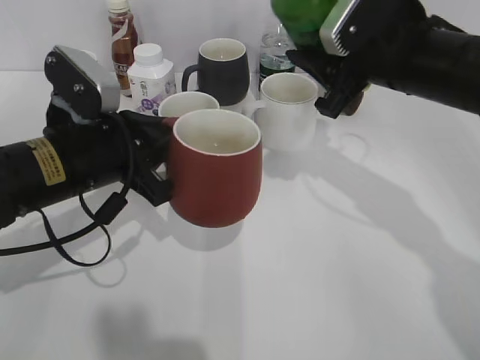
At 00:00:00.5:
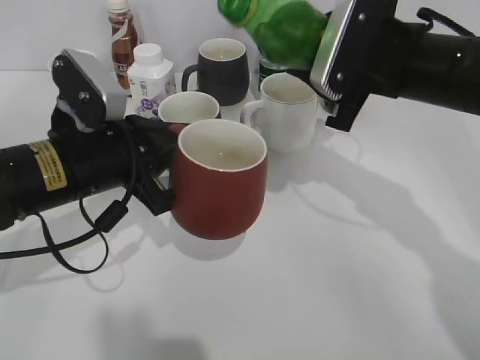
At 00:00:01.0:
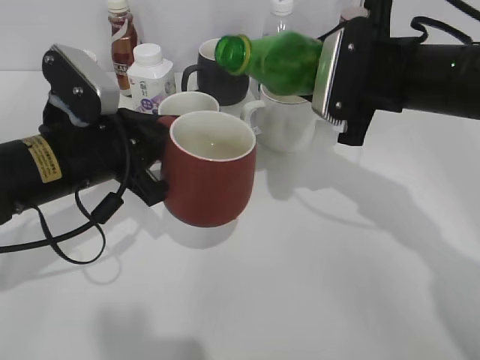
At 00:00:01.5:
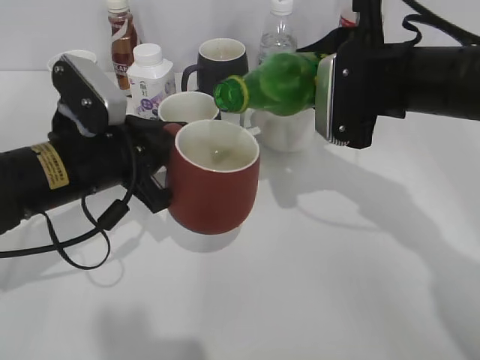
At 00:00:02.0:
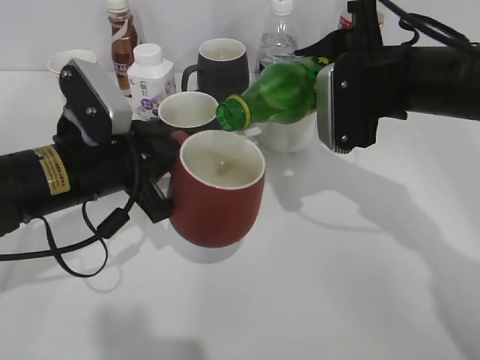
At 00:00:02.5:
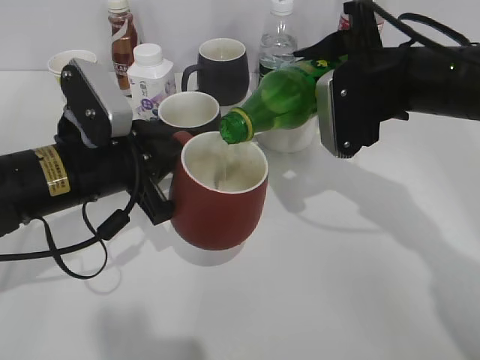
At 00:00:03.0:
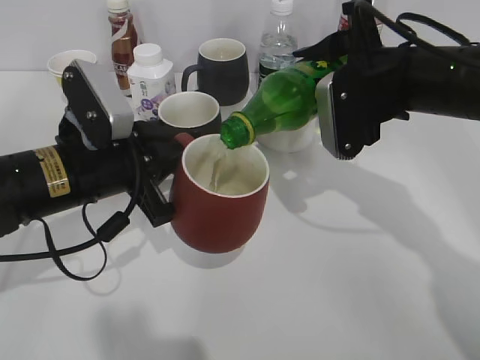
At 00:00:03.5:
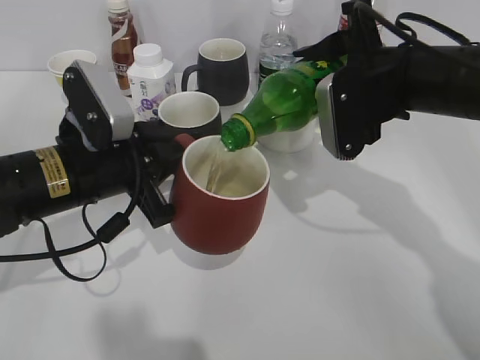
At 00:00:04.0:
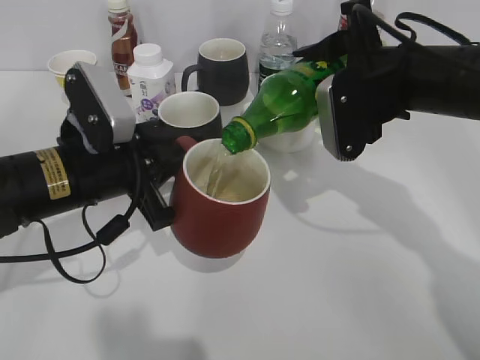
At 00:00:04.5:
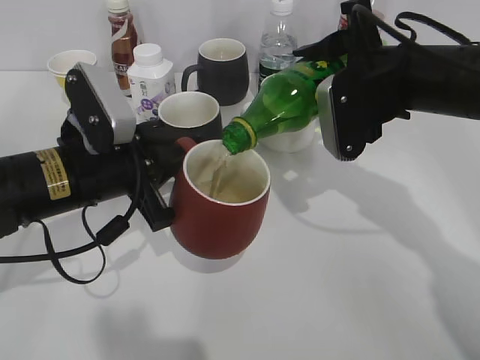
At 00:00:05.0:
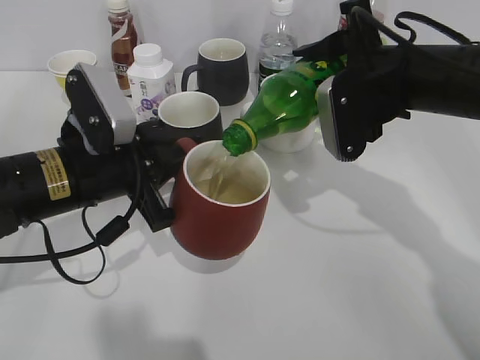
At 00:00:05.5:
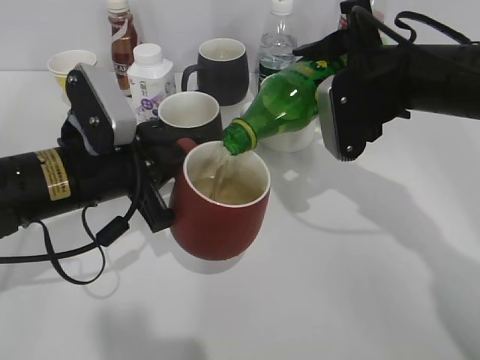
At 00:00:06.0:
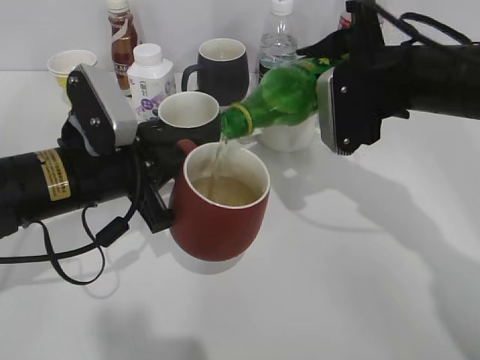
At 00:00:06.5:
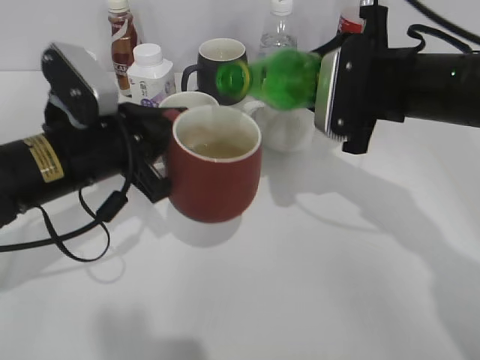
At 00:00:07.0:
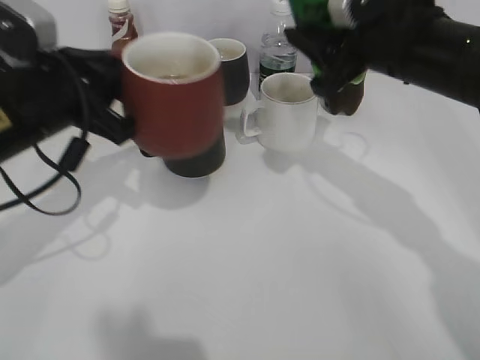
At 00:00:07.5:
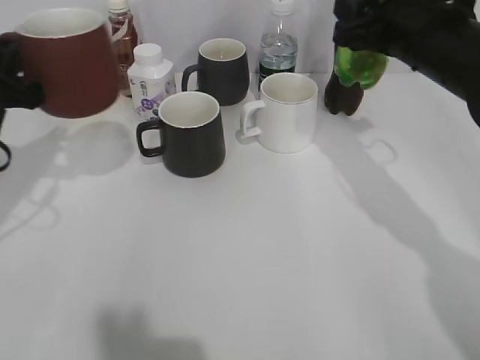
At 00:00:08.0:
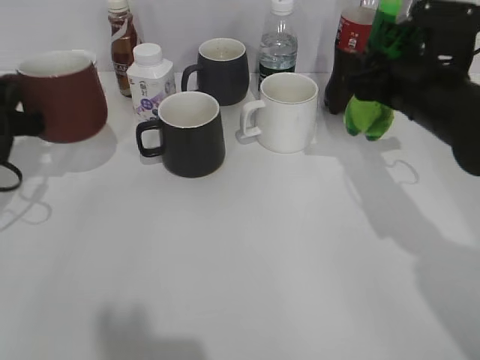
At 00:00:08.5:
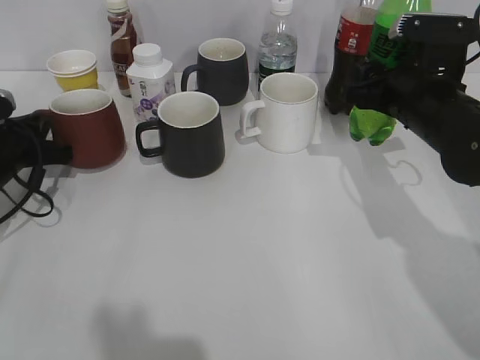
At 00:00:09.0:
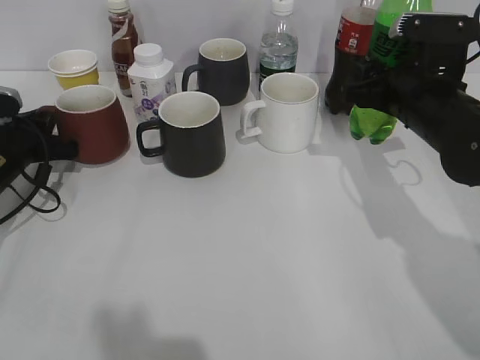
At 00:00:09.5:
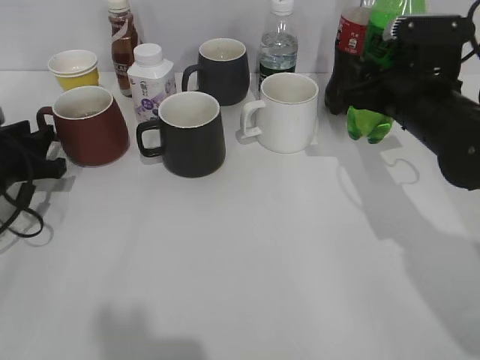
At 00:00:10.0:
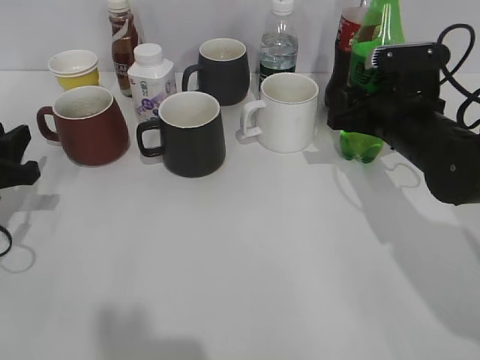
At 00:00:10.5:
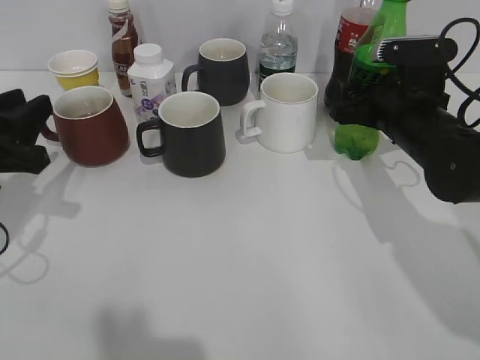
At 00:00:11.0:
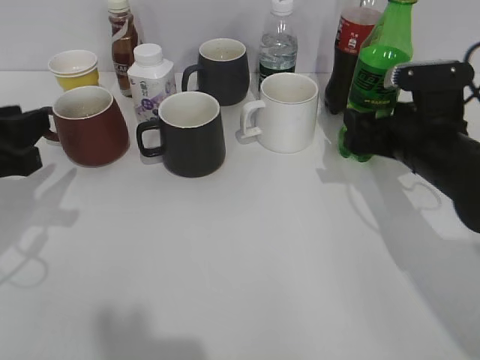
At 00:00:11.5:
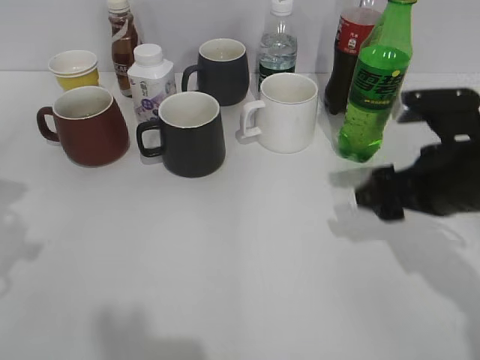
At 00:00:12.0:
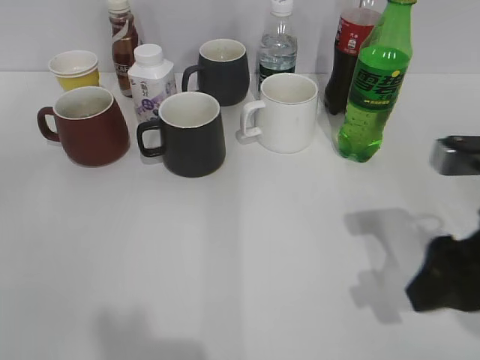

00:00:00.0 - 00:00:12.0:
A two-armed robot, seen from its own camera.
Step, 00:00:00.0 - 00:00:06.0: Pour the sprite from bottle to cup with right gripper.
Step, 00:00:06.5 - 00:00:07.0: Place the red cup on the table with left gripper.
Step, 00:00:07.5 - 00:00:11.0: Place the sprite bottle on the table with right gripper.
00:00:02.0 - 00:00:04.0: There are only small adjustments of the grippers.
00:00:04.0 - 00:00:06.0: The two grippers keep their place.
00:00:06.0 - 00:00:08.0: The left gripper heads to the left, covering approximately 15 cm; the right gripper changes place by approximately 5 cm.
00:00:08.0 - 00:00:10.0: The left gripper ends up about 5 cm from where it was, and opens its fingers.
00:00:10.0 - 00:00:12.0: The right gripper heads backward, covering approximately 15 cm, and opens up. Meanwhile the left gripper goes approximately 20 cm backward and upward.

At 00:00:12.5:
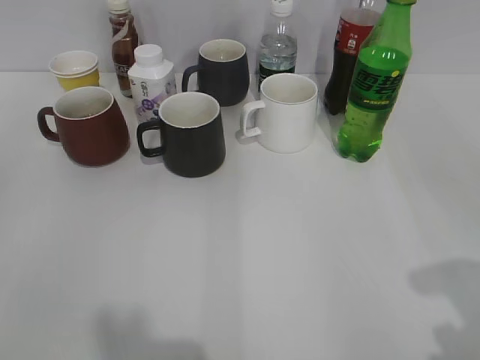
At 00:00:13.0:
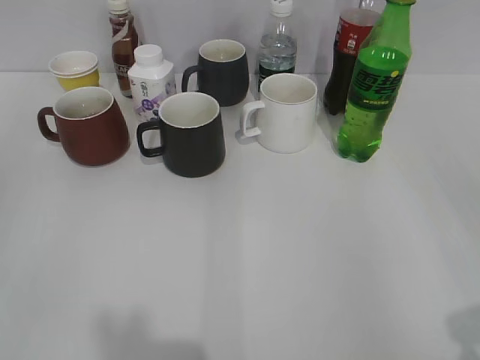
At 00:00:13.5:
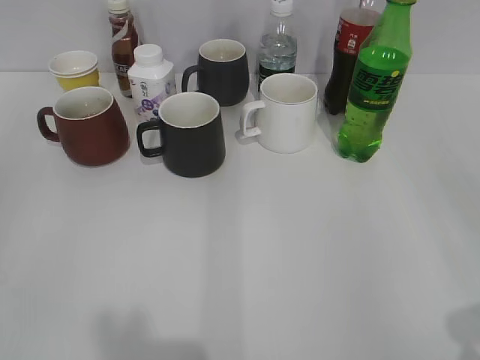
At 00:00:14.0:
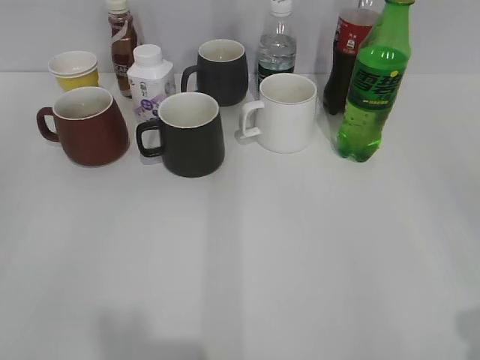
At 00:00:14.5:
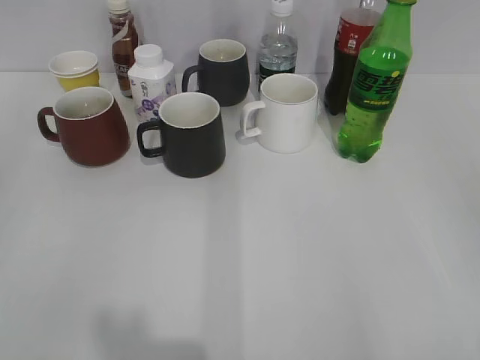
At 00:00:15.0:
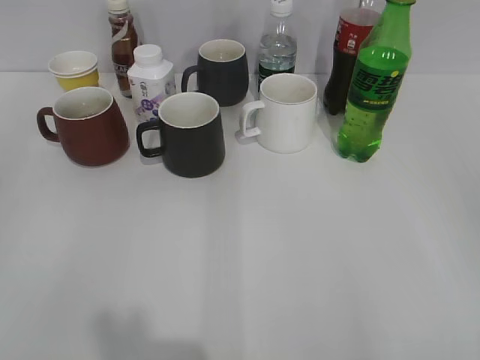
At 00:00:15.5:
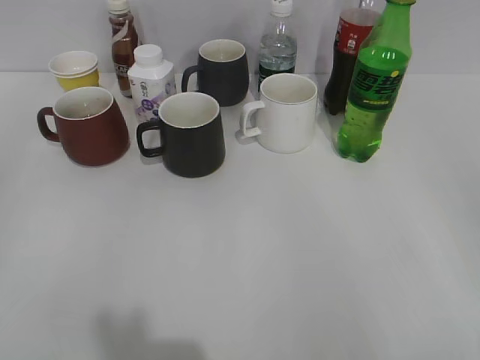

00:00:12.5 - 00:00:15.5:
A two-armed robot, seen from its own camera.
00:00:12.5 - 00:00:14.0: The right gripper travels backward by approximately 5 cm.

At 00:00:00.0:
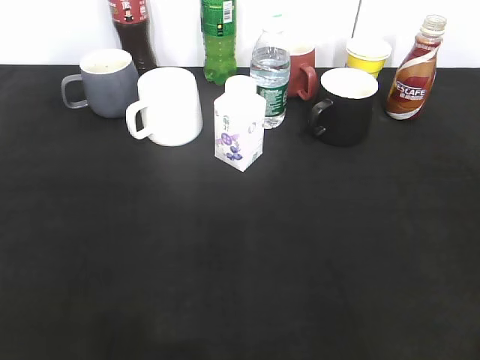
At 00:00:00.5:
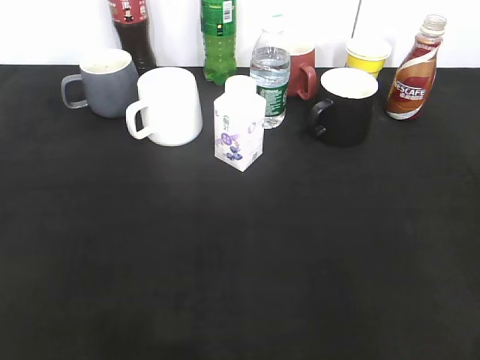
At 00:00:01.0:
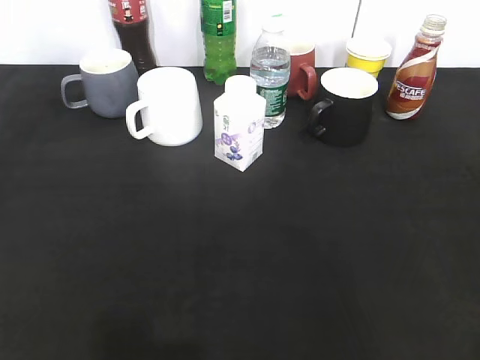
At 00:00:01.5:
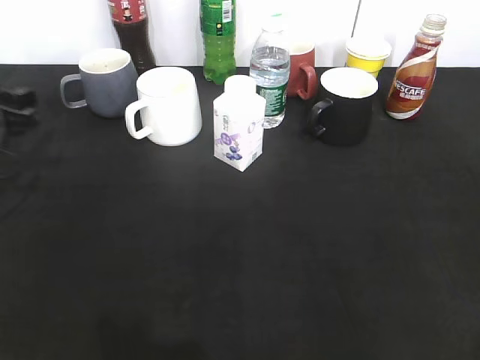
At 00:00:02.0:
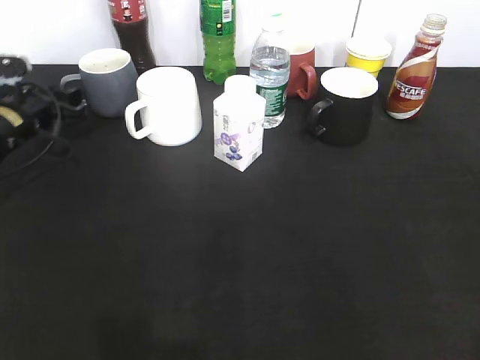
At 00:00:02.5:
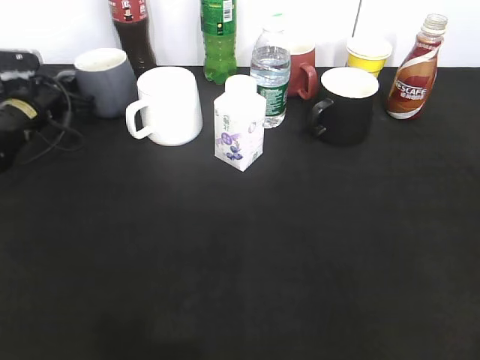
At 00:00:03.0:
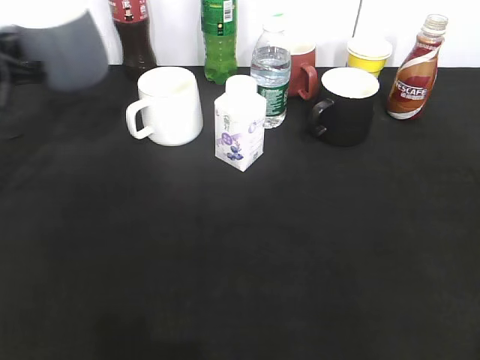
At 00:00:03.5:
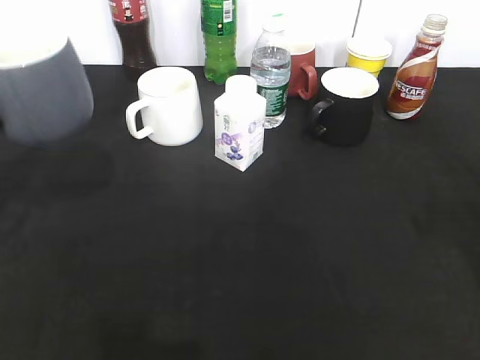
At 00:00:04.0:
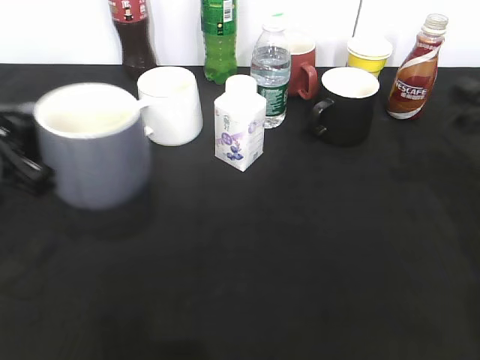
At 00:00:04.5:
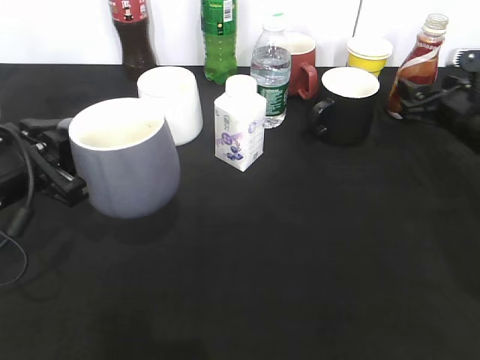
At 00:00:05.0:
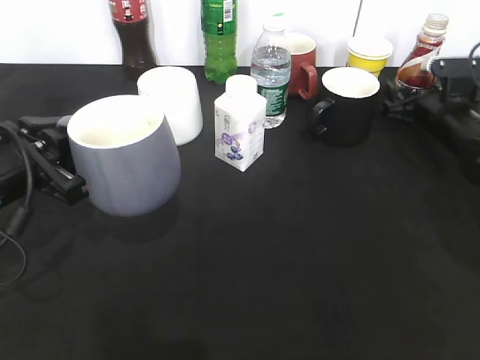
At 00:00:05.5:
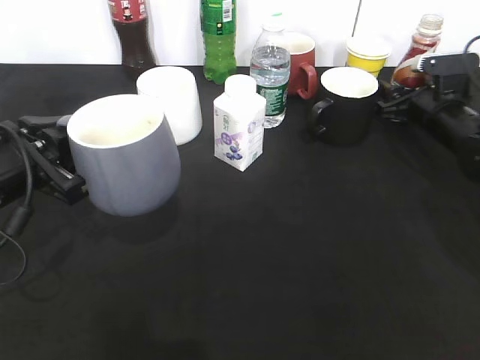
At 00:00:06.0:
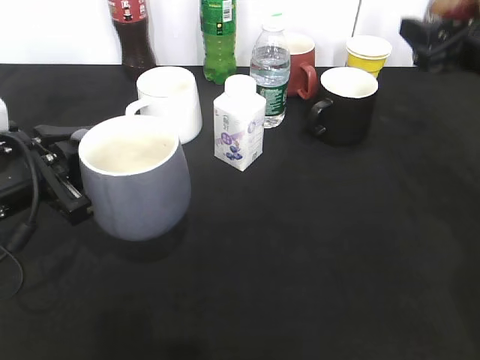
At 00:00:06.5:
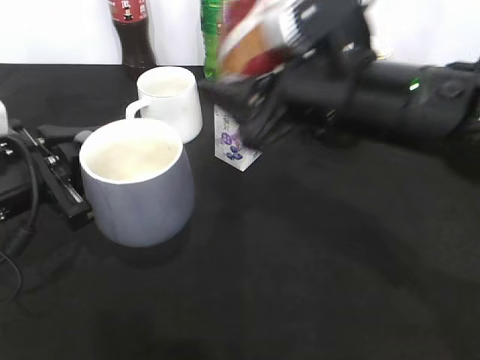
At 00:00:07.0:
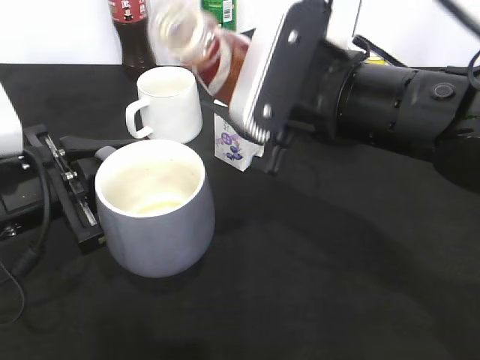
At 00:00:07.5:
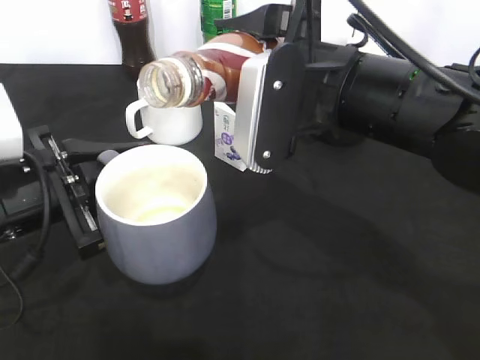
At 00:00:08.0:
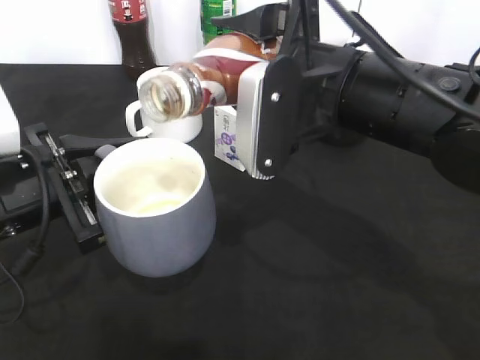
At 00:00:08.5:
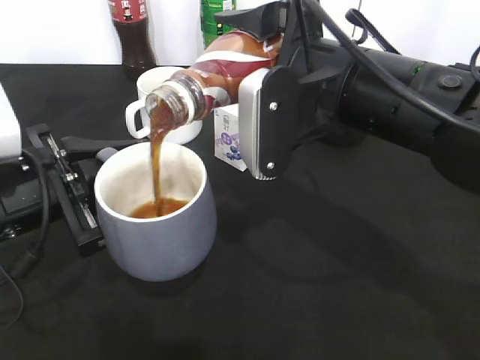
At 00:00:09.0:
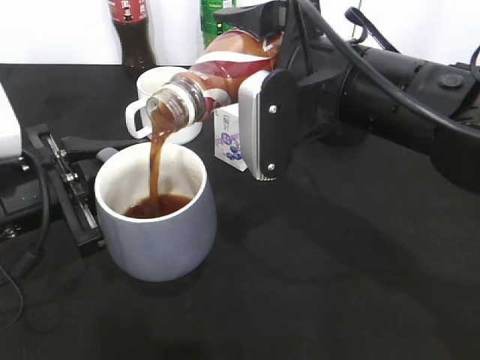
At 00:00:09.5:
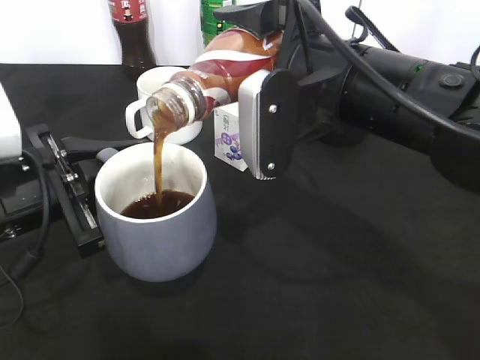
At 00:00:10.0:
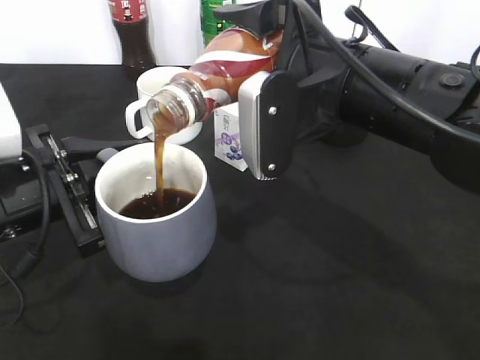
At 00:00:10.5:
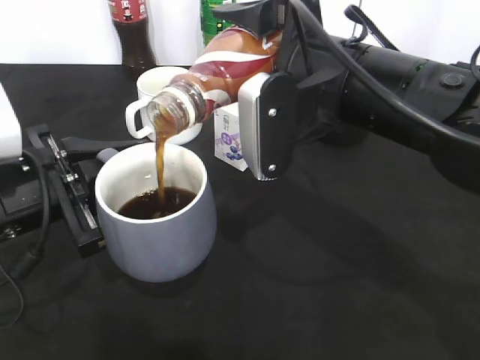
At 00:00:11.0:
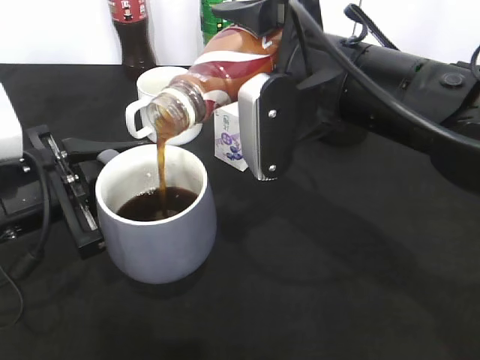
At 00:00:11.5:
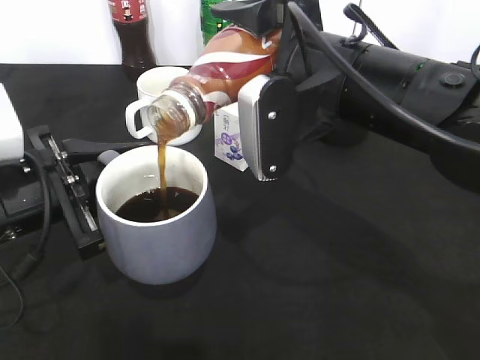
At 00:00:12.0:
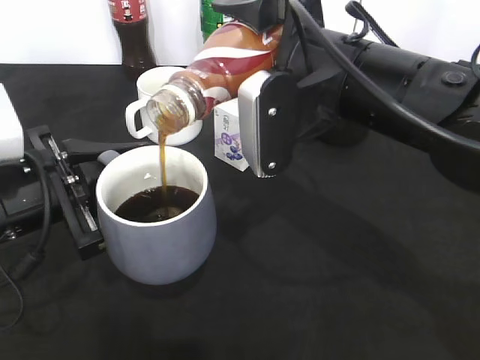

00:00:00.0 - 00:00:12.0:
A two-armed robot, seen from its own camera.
Step, 00:00:00.0 - 00:00:02.5: Grasp the grey cup with left gripper.
Step, 00:00:03.0 - 00:00:03.5: Lift the grey cup with left gripper.
Step, 00:00:04.0 - 00:00:05.0: Grasp the bottle with coffee with right gripper.
00:00:00.0 - 00:00:02.0: The left gripper goes some 40 cm forward, and closes up.
00:00:02.0 - 00:00:04.0: The left gripper moves backward and upward, some 20 cm, and closes; the right gripper heads forward, covering approximately 30 cm.
00:00:04.0 - 00:00:06.0: The right gripper shifts approximately 5 cm forward, and closes.
00:00:06.0 - 00:00:08.0: The right gripper is displaced to the left and backward by some 20 cm.
00:00:08.0 - 00:00:10.0: The grippers stay close to where they were, moving slightly.
00:00:10.0 - 00:00:12.0: Neither gripper changes place.
